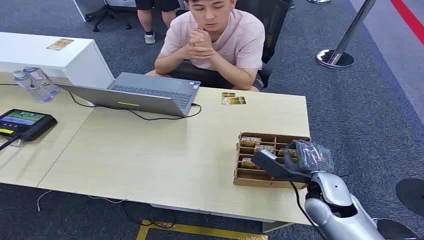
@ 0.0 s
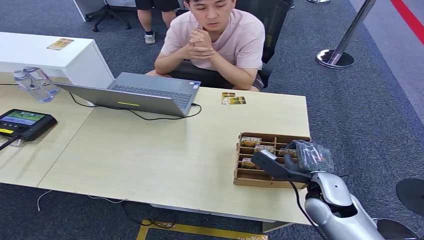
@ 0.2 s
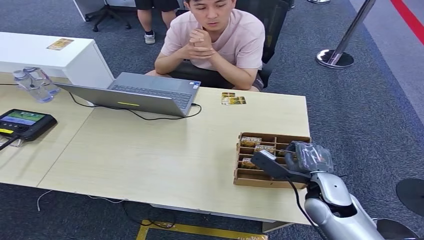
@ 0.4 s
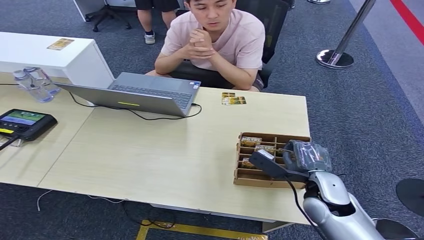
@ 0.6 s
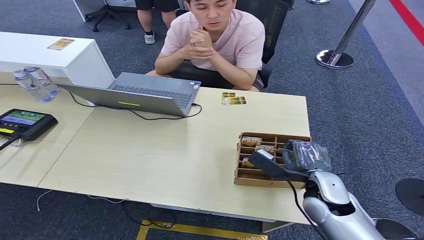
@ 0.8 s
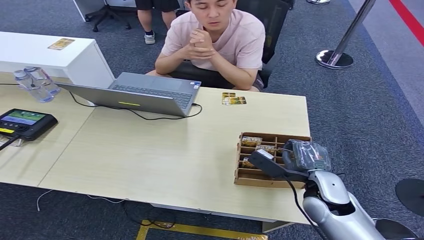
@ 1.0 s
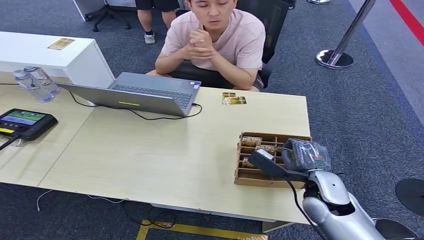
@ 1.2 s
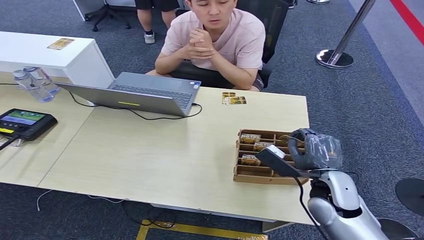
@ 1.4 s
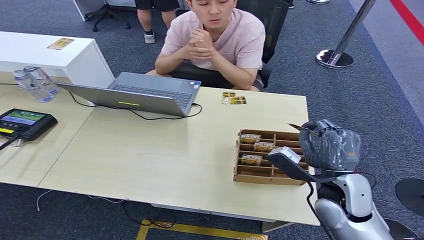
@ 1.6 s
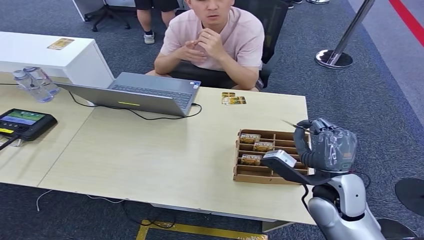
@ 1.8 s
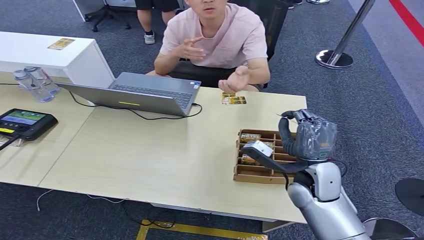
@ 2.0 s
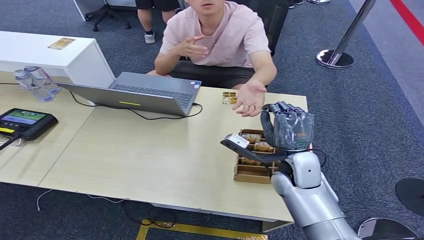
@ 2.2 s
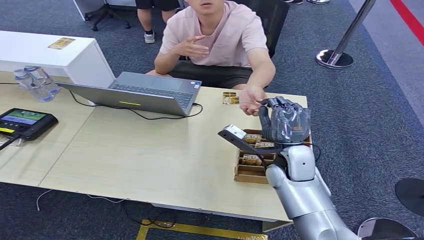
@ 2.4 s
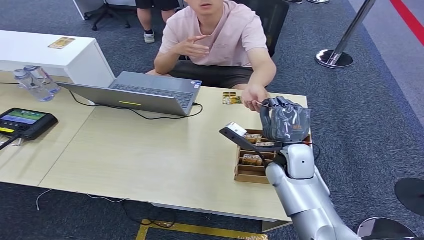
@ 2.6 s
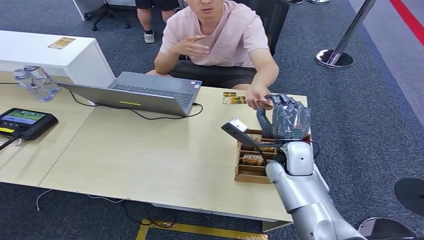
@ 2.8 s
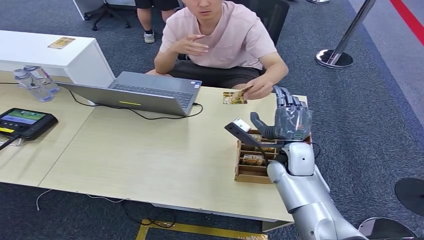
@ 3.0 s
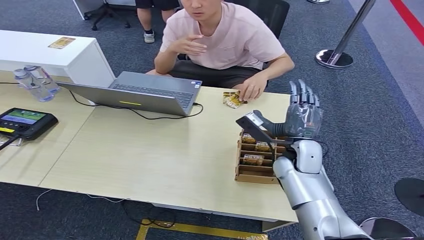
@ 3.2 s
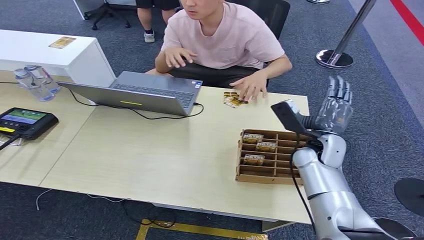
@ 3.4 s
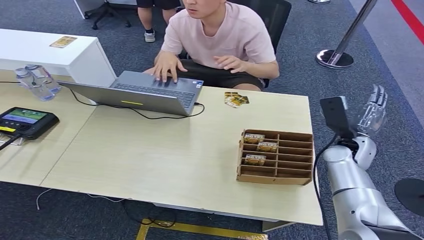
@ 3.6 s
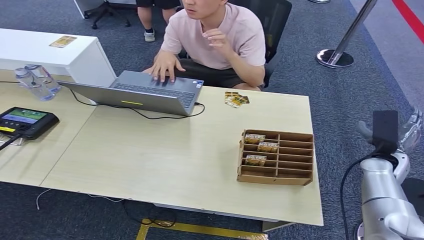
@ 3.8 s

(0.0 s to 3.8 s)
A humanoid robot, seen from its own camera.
Step, 0.0 s - 1.4 s: Pick up the key card from the card box.
Step, 1.6 s - 3.8 s: Hand the key card to the target.
1.2 s - 2.6 s: The right hand travels forward and to the left by some 10 cm.

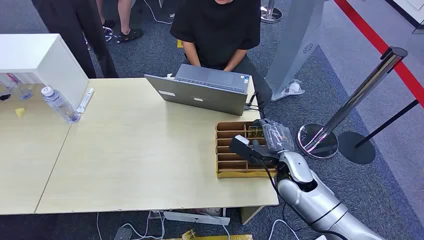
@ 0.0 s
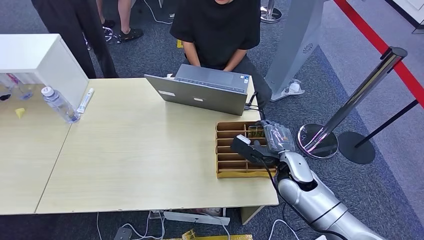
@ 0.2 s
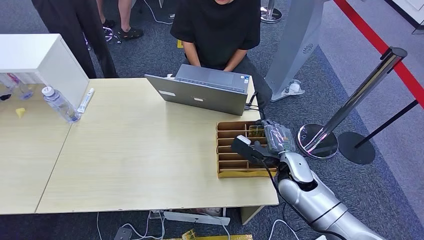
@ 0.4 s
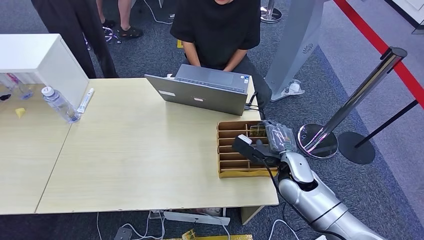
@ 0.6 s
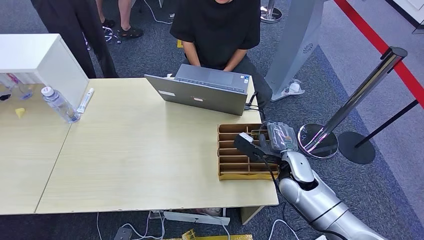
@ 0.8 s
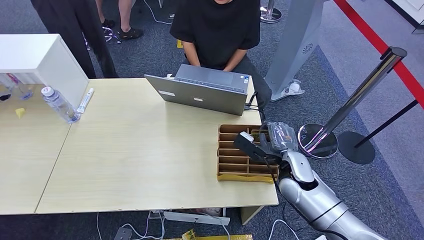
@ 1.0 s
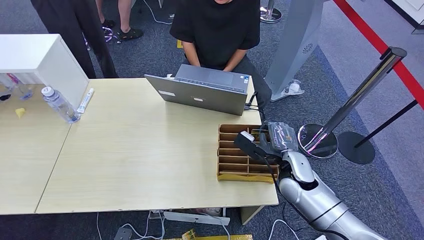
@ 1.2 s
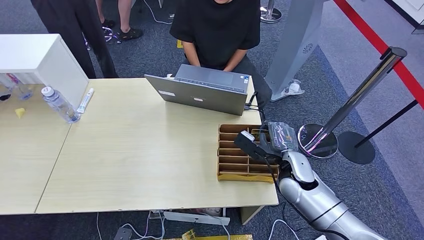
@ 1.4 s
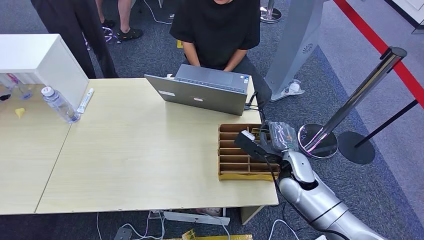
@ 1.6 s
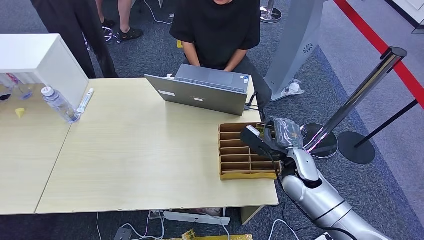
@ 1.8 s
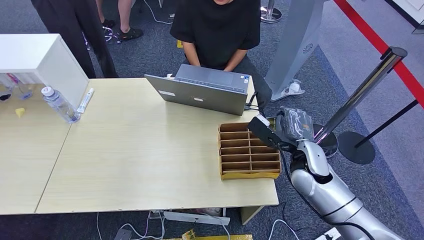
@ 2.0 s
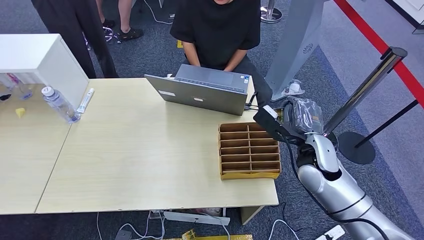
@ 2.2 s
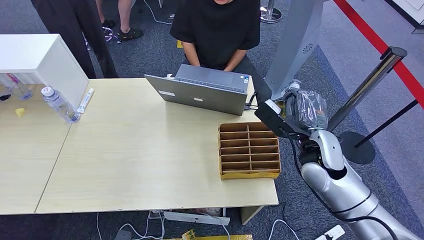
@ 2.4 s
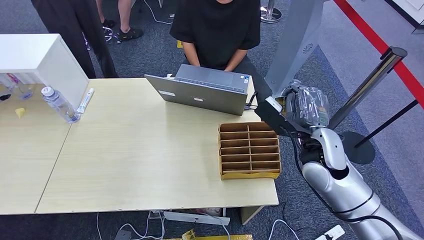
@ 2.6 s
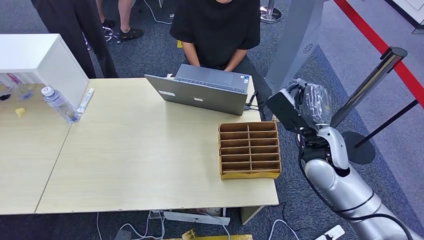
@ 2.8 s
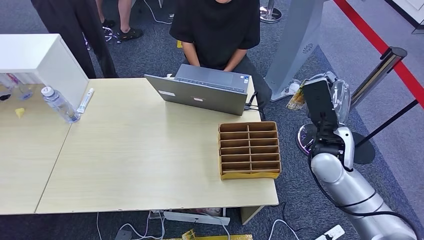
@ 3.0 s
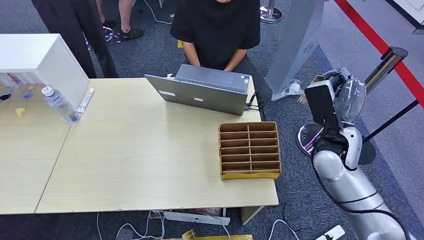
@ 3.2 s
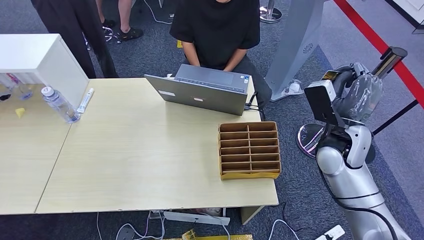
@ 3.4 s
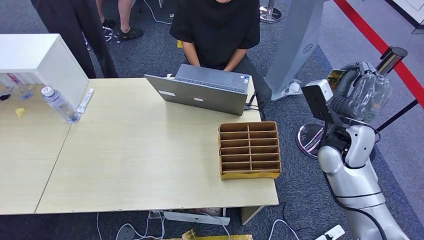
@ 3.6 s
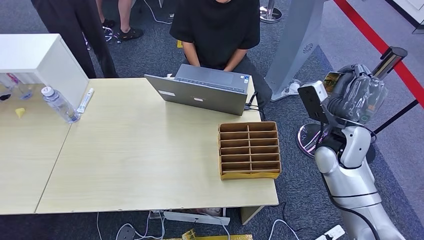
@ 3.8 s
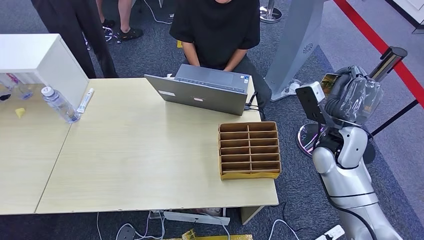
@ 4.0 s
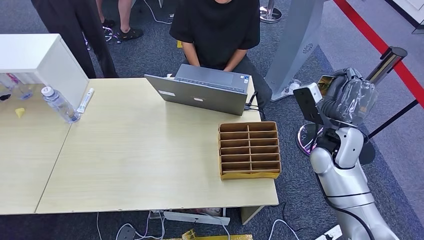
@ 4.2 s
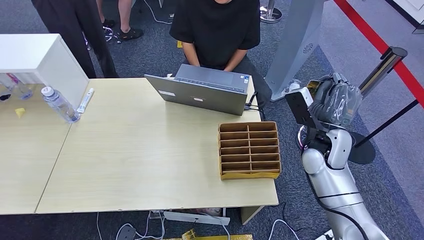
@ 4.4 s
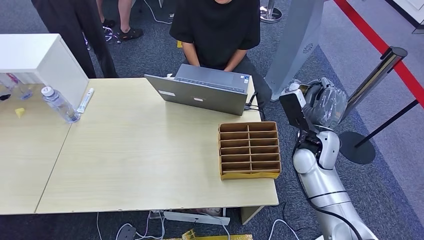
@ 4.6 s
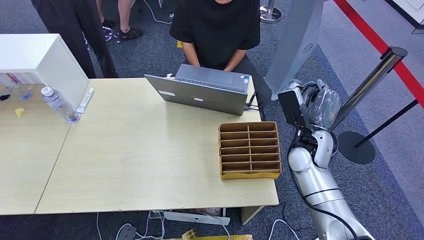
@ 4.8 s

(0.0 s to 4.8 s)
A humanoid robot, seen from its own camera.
Step, 0.0 s - 2.4 s: Pick up the key card from the card box.
Step, 2.6 s - 4.8 s: Hand the key card to the target.
1.6 s - 3.2 s: The right hand heads upward and to the right, covering approximately 10 cm.
3.2 s - 4.8 s: The right hand moves some 5 cm.

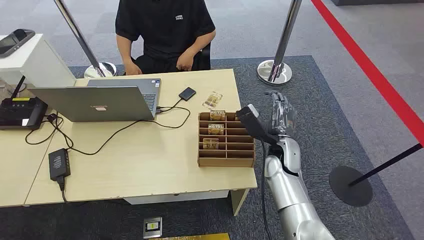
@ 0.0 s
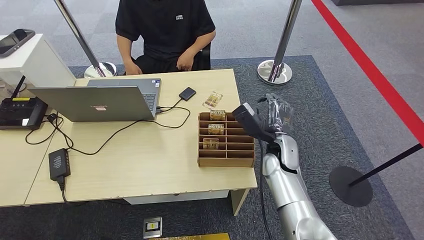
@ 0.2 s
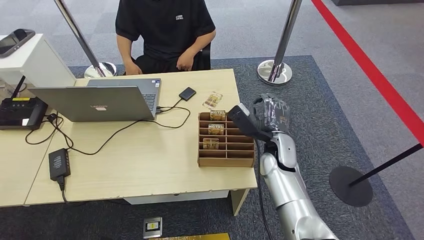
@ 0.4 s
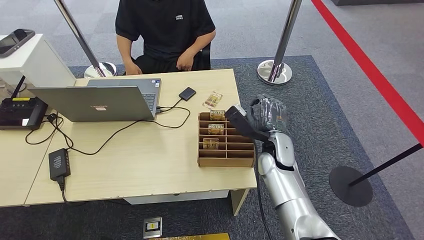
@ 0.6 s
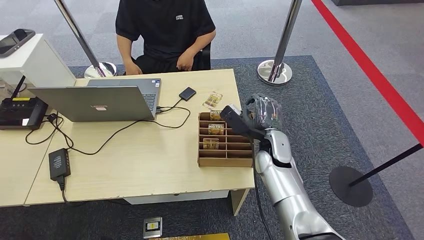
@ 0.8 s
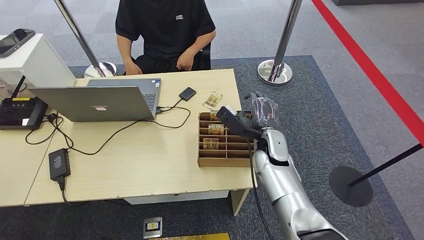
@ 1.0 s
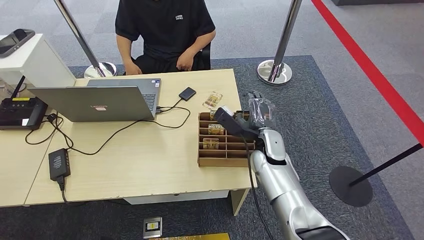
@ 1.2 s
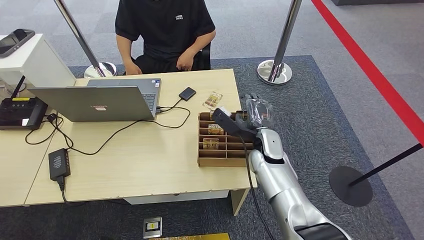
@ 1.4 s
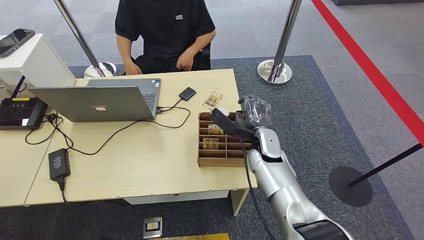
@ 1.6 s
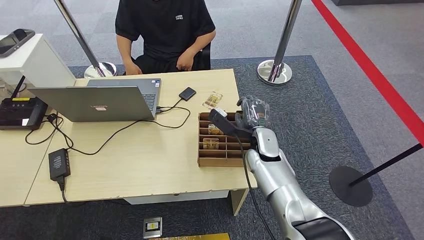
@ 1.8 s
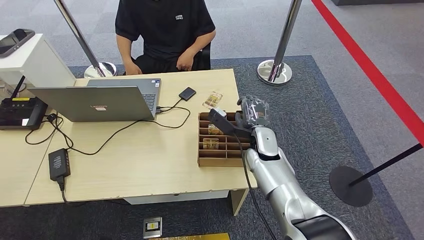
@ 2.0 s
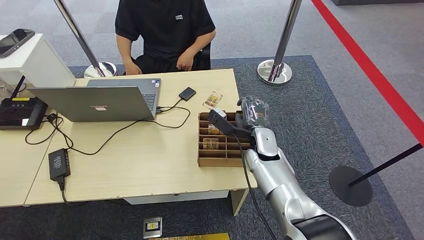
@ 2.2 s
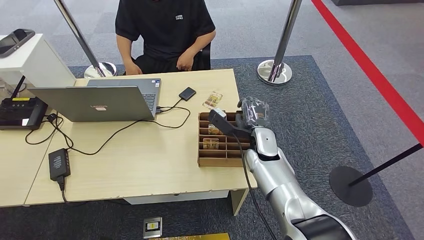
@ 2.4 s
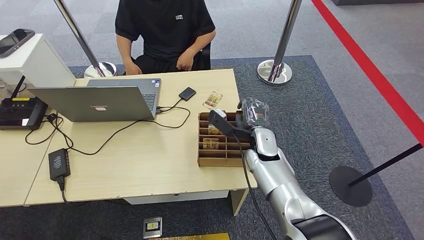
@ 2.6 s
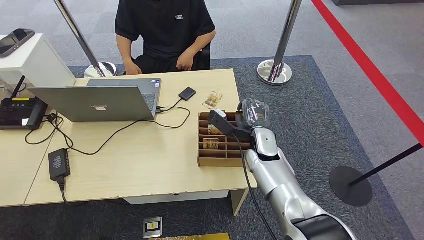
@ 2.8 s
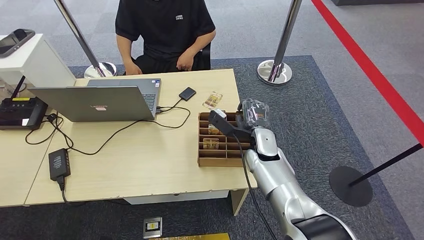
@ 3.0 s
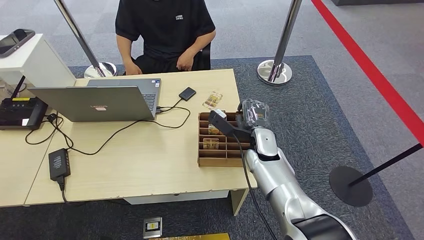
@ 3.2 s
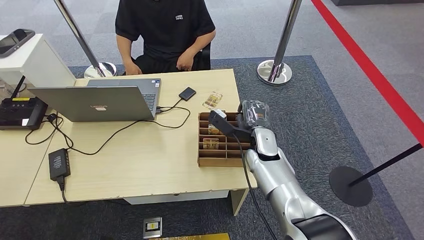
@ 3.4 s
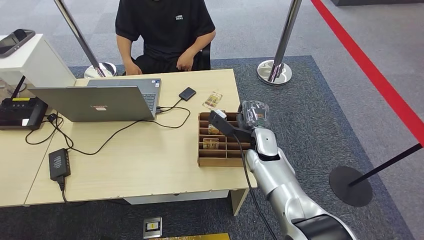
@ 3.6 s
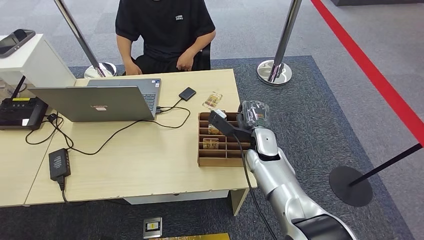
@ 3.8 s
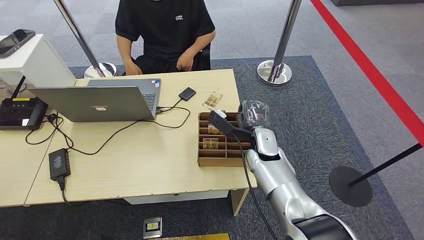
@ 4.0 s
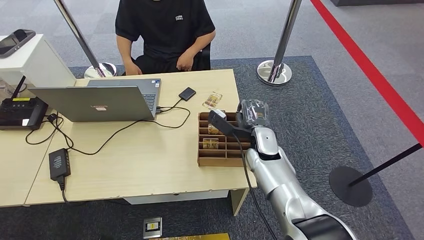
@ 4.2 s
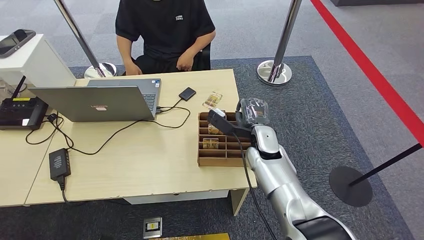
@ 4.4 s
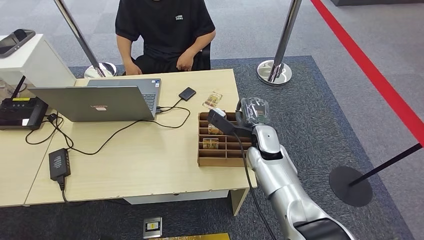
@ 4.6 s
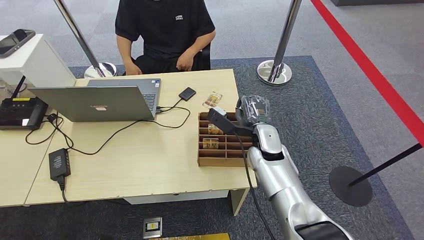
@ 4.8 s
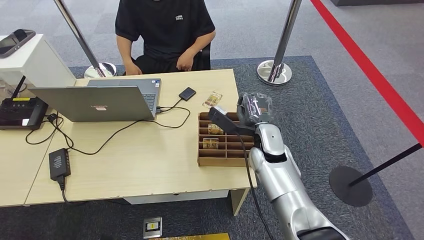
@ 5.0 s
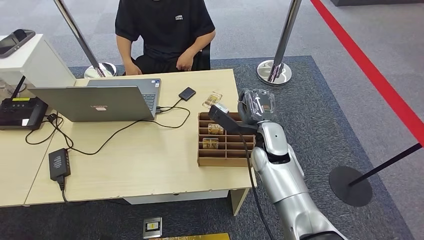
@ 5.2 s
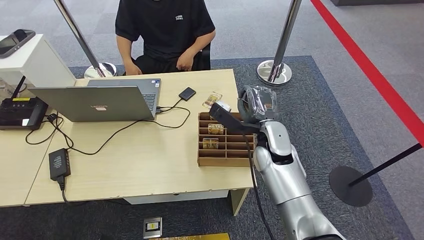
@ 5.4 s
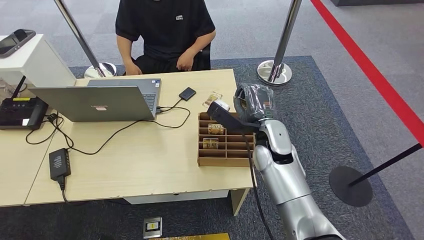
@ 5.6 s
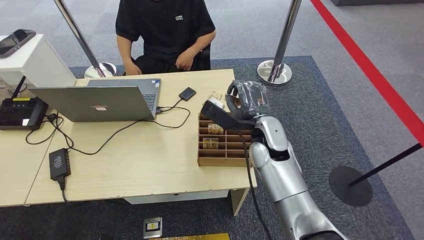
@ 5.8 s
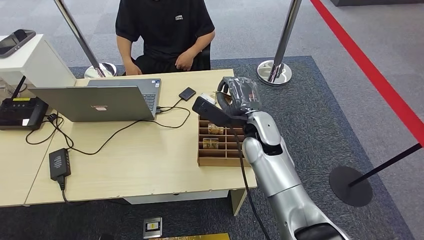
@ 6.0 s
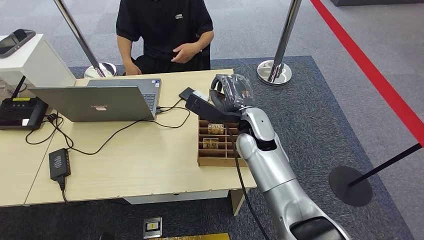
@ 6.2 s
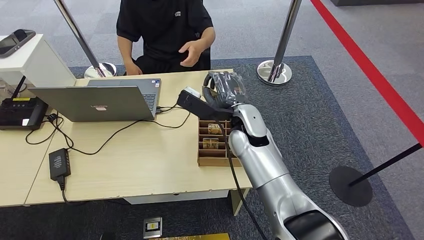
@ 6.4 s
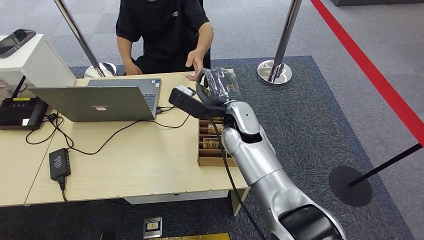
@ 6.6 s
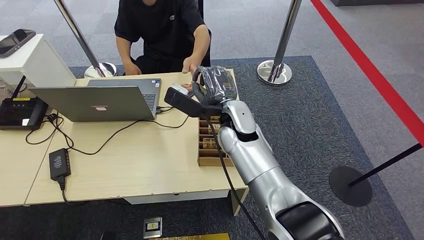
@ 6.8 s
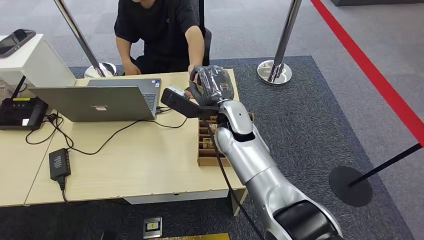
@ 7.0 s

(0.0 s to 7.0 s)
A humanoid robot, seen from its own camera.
Step, 0.0 s - 6.0 s: Pick up the key card from the card box.
Step, 6.2 s - 6.8 s: Hand the key card to the target.
1.4 s - 2.8 s: There are only small adjustments of the hands.
2.8 s - 4.2 s: Both hands stay about where they are.
4.2 s - 5.6 s: The right hand travels upward by approximately 5 cm.
5.6 s - 7.0 s: The right hand is displaced to the left by some 10 cm.
